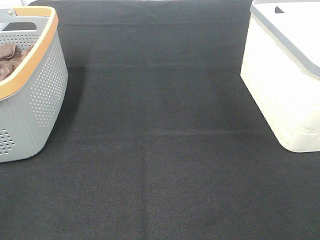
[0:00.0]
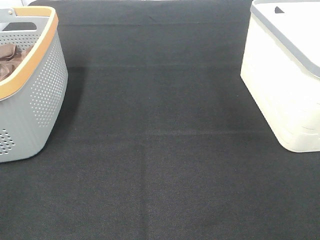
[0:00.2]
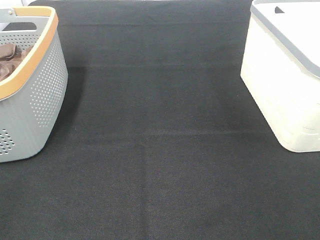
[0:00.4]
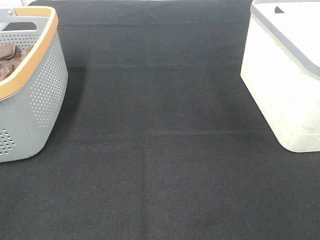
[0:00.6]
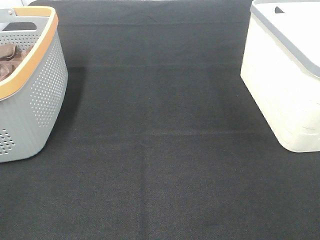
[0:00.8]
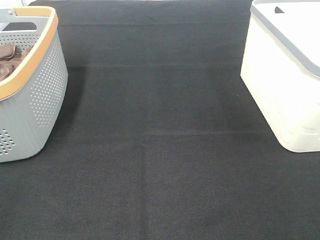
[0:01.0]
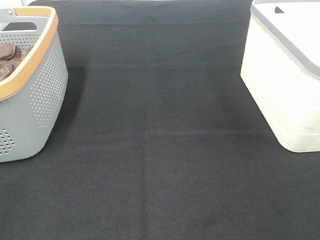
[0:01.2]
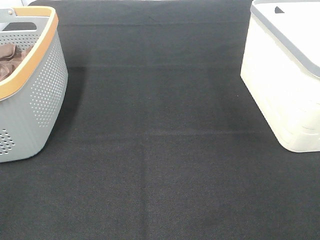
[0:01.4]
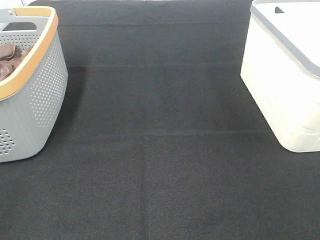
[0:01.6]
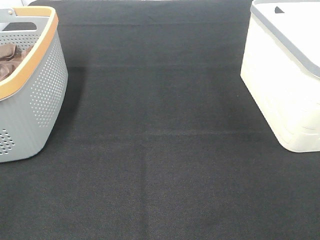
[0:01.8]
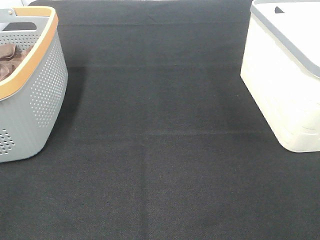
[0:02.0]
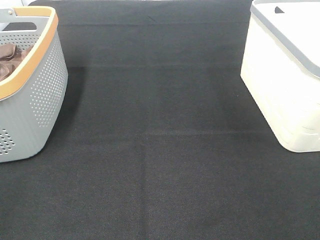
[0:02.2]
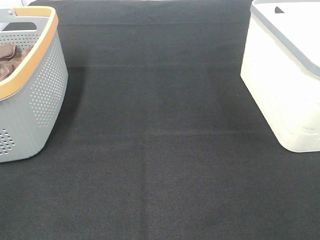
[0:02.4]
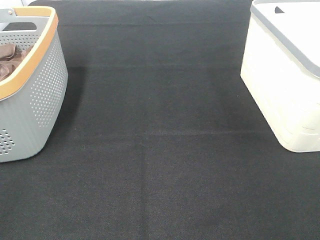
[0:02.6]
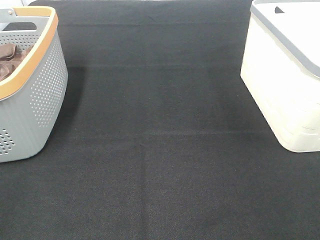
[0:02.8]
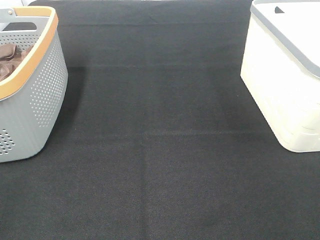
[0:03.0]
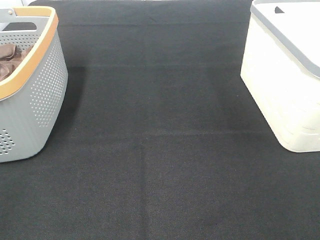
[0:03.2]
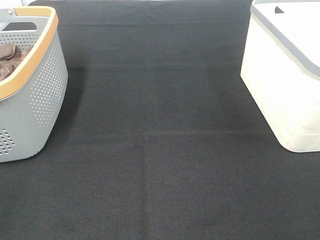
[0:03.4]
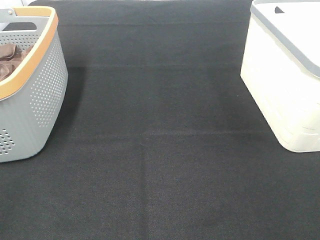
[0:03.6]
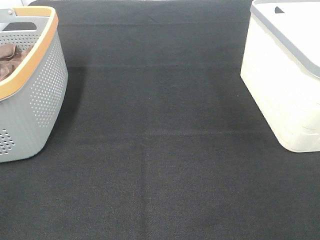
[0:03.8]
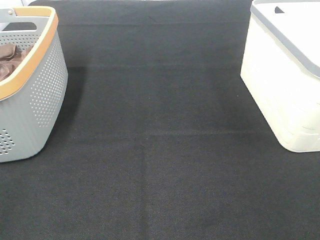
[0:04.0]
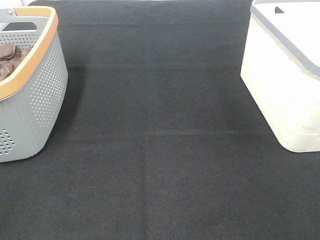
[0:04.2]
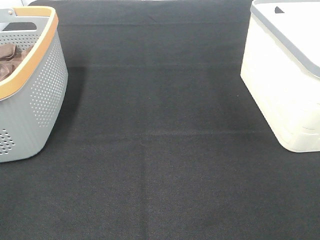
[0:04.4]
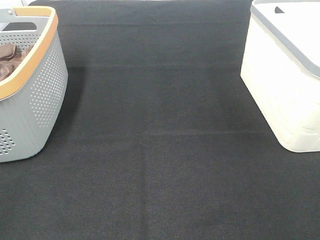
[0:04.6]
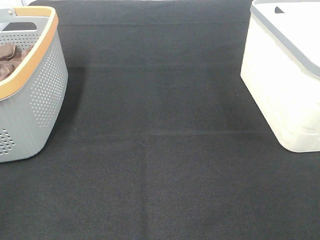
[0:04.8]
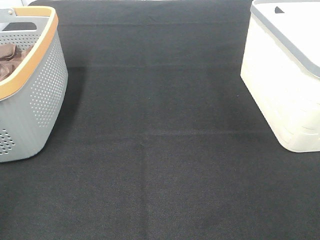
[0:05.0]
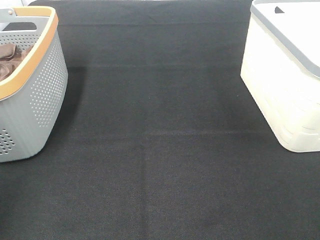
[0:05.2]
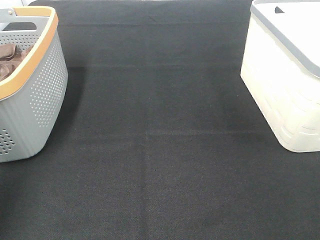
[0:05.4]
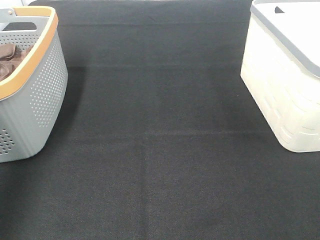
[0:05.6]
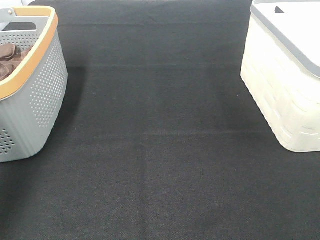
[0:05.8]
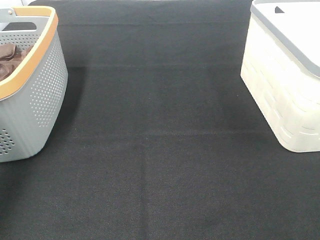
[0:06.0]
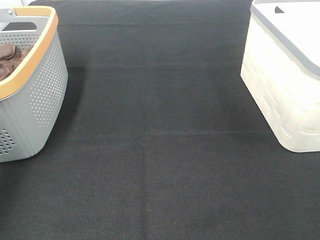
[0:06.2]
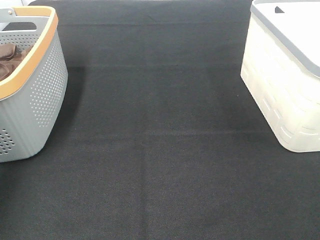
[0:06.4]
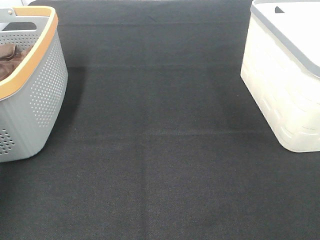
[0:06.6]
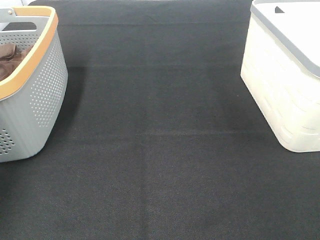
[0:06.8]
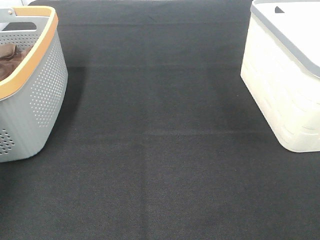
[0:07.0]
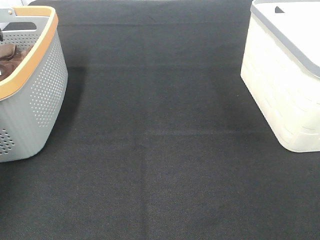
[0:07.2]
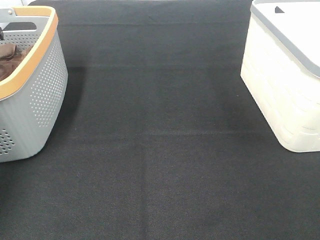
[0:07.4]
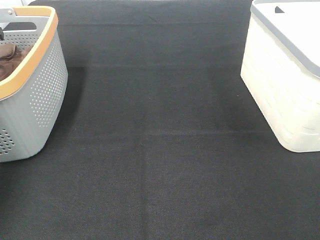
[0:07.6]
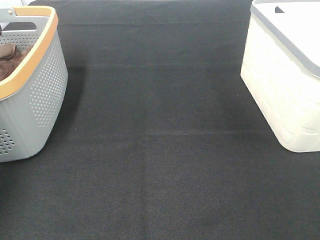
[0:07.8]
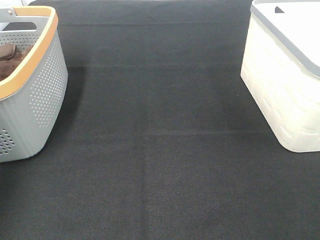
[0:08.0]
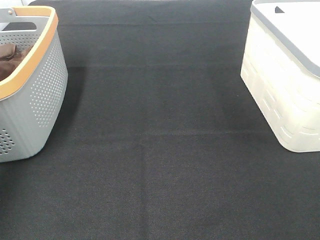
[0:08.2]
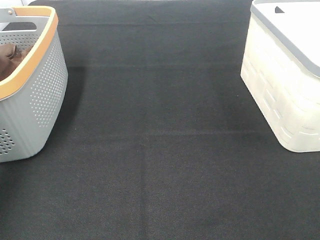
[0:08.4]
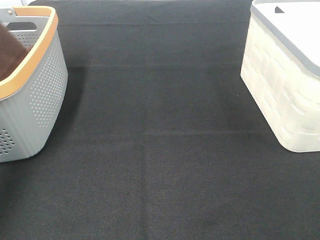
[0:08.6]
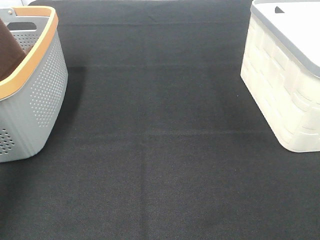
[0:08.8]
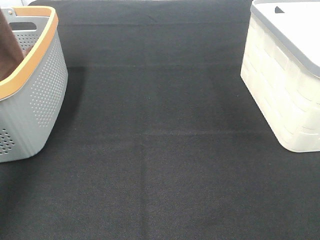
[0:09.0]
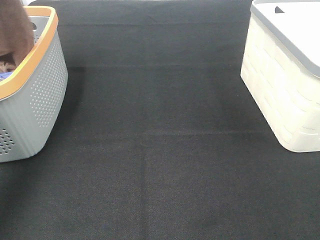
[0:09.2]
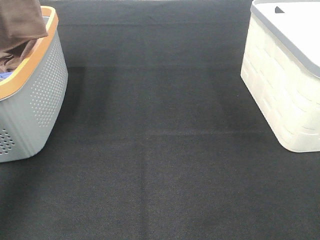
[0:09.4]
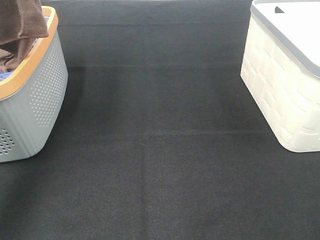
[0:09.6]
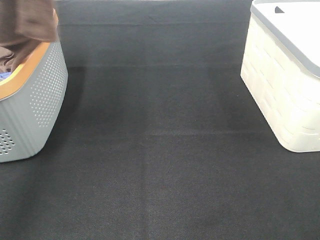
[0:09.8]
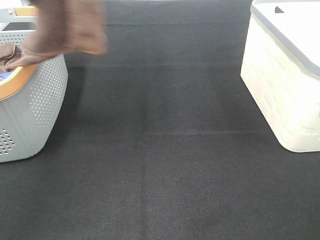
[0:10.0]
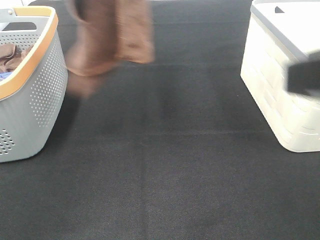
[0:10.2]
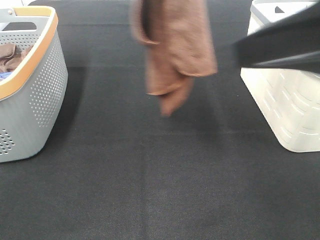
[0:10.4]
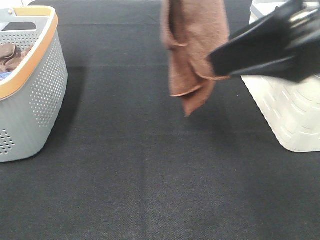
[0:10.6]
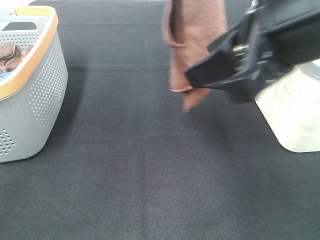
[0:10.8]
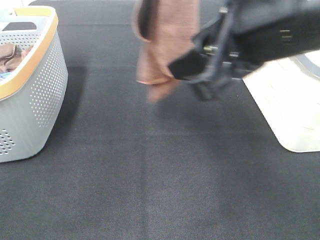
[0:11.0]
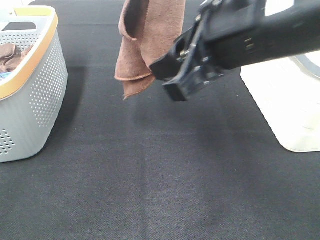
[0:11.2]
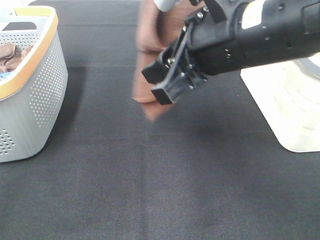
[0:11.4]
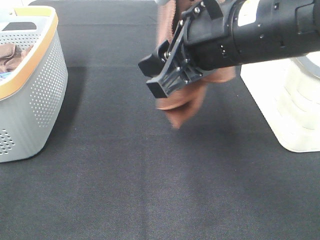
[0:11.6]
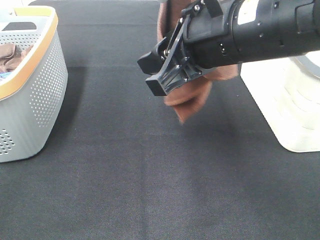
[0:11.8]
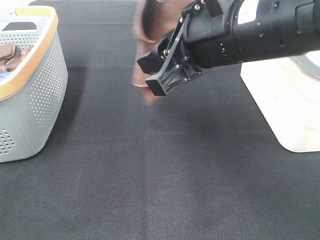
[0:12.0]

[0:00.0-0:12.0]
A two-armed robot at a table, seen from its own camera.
Task of the whole recording: Remove the towel and place it.
0:00.0 to 0:04.4: Neither gripper changes place.
0:04.4 to 0:06.0: The left gripper goes about 30 cm forward.
0:07.6 to 0:09.0: The left gripper goes some 35 cm upward and backward.
0:09.0 to 0:10.4: The right gripper heads forward, to the left and upward, covering approximately 20 cm; the left gripper travels to the right by approximately 20 cm.
0:10.4 to 0:12.0: The right gripper moves to the left, forward and downward, about 15 cm.

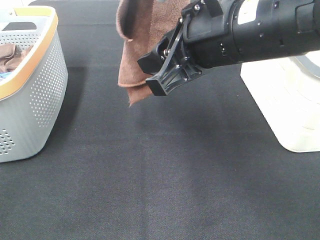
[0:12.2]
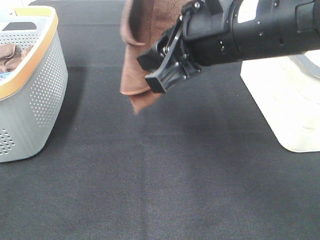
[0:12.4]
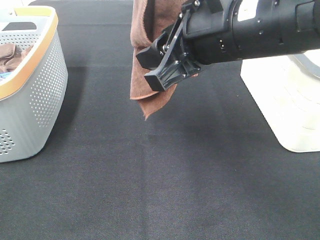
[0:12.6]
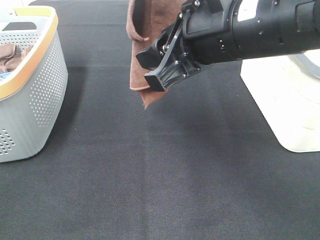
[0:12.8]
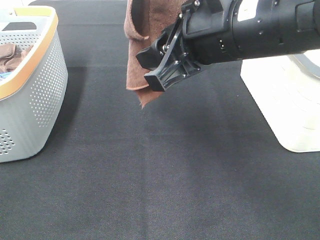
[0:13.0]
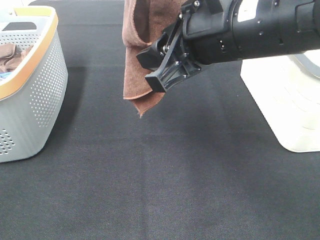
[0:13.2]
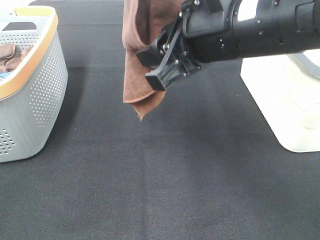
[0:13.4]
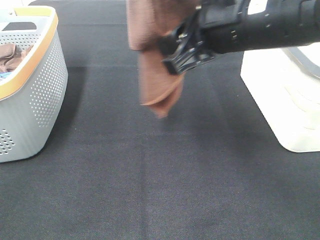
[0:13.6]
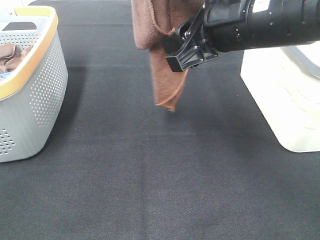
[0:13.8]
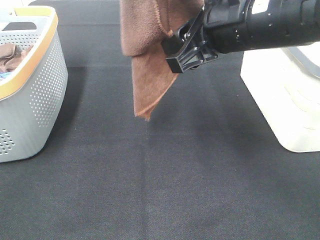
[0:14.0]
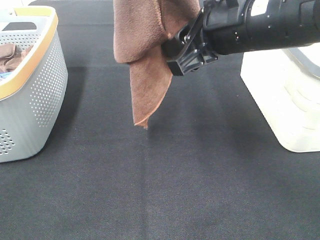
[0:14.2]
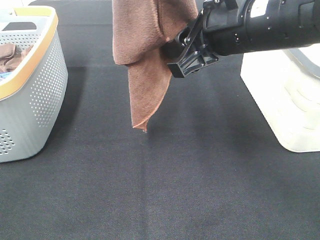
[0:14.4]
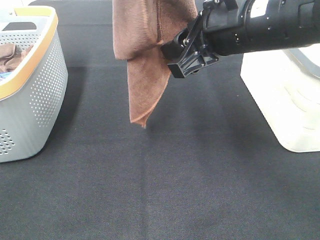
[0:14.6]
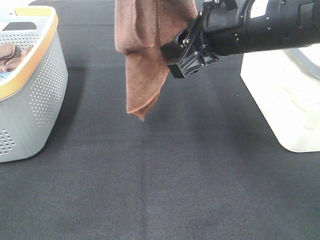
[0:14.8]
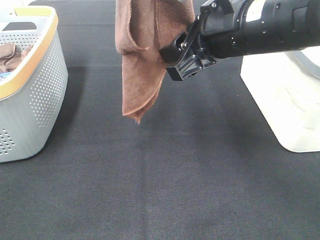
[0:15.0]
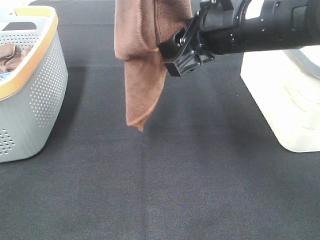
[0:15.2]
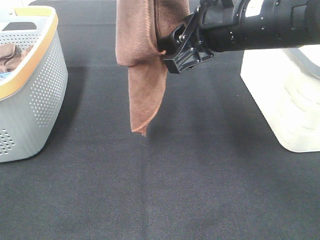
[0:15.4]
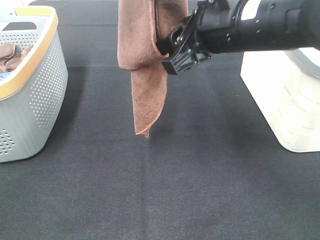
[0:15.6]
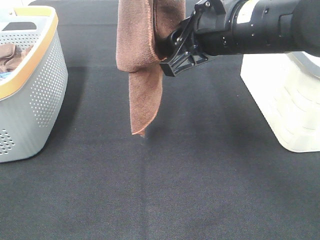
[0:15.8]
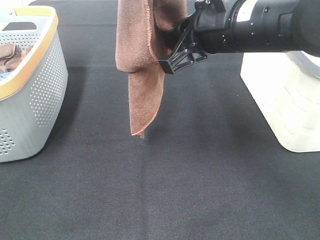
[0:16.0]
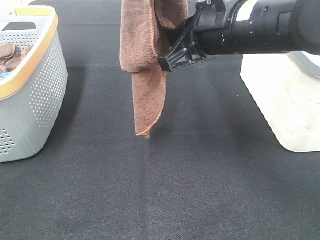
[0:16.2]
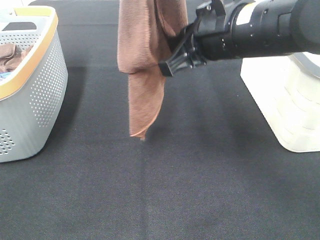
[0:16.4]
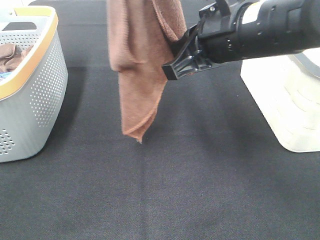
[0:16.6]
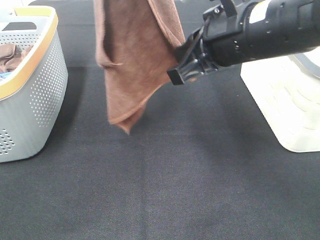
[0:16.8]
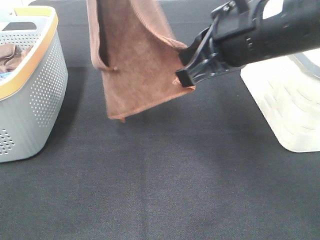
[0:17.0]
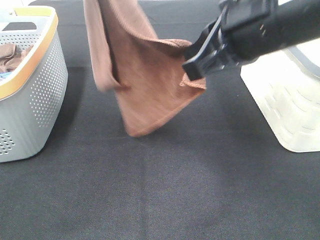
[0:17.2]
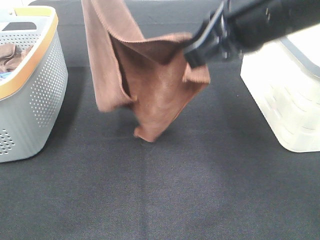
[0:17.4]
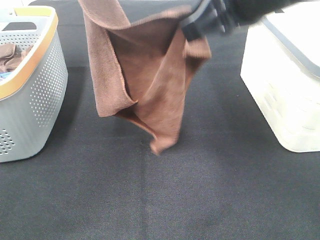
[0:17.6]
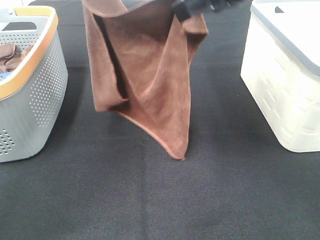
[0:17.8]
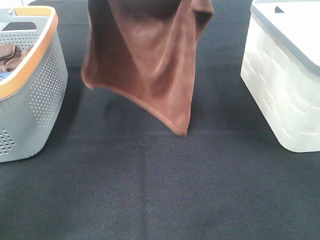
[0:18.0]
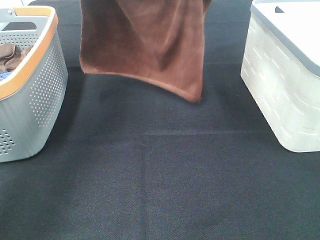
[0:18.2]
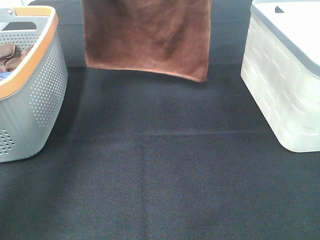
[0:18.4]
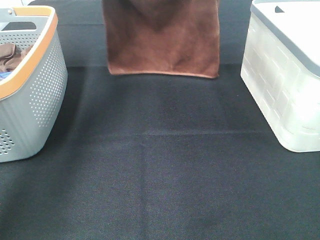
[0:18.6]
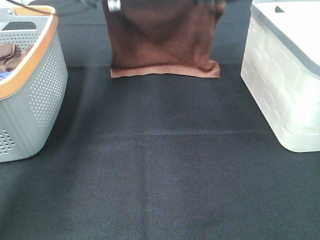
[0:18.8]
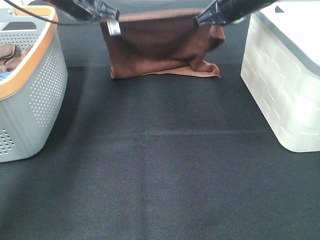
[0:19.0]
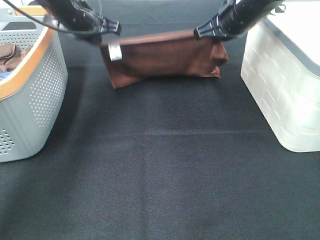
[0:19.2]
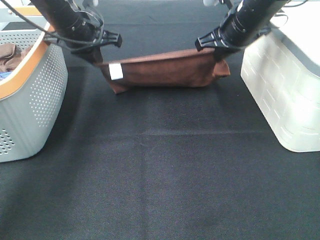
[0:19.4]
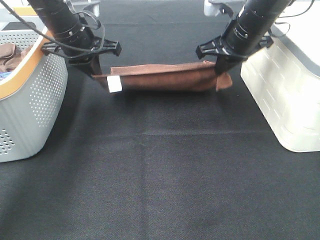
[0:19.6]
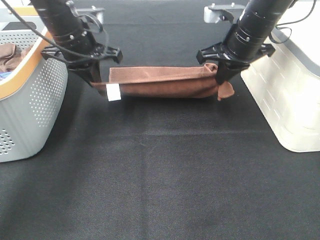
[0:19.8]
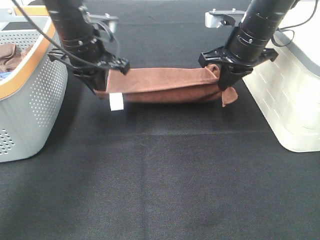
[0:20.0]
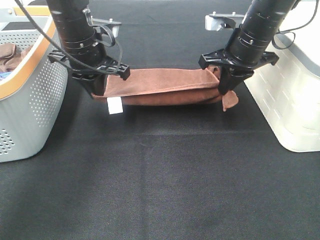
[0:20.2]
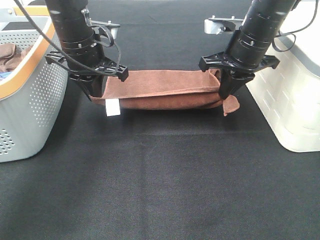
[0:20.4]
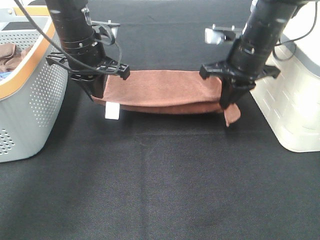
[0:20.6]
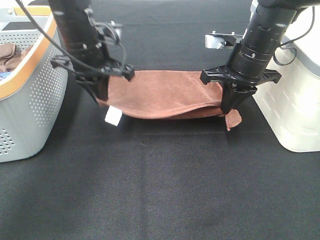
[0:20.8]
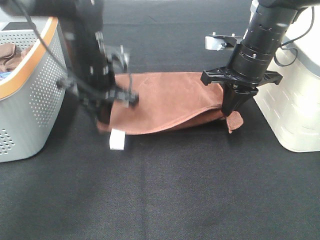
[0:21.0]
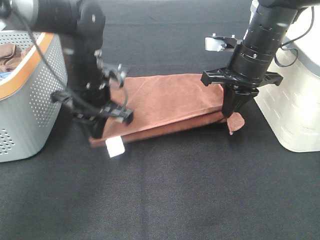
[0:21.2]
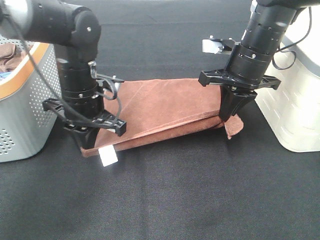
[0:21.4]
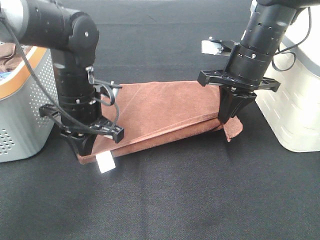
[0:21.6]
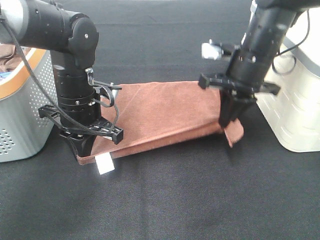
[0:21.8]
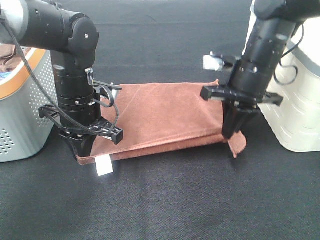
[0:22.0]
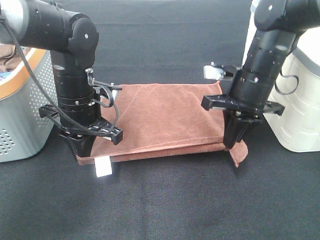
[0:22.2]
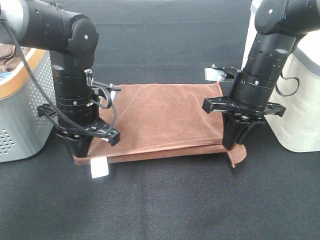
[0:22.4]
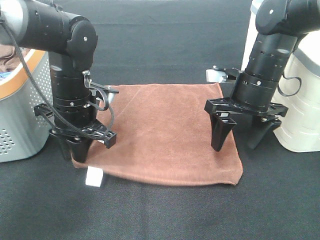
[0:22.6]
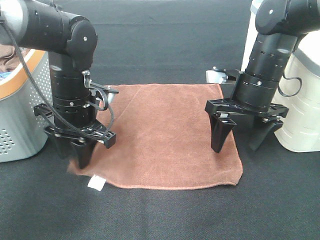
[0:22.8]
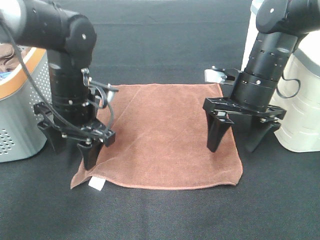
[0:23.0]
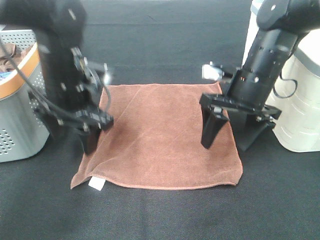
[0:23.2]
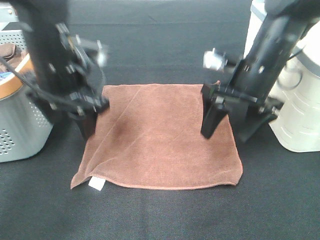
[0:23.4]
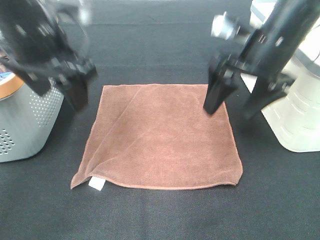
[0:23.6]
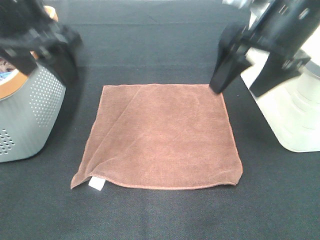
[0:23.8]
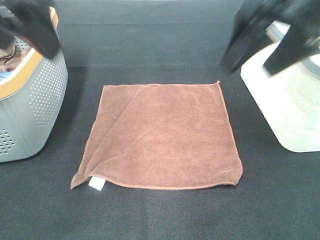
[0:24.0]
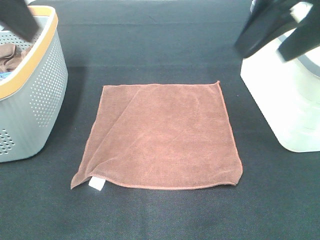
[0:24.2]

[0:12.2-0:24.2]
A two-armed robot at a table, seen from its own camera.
Task of the whole recording: Remove the towel and place it.
Step, 0:12.2 to 0:14.8: Right hand: grab a corner of the brown towel and straighten it.
Step, 0:15.0 to 0:18.0: Right hand: spread the brown towel flat on the table.
Step, 0:15.0 to 0:18.2: Left hand: spread the brown towel flat on the table.
0:12.2 to 0:13.8: The grippers stay close to where they were, moving slightly.
0:13.8 to 0:15.2: Both grippers stay about where they are.
0:15.2 to 0:16.6: The right gripper closes.
0:16.6 to 0:18.2: The left gripper travels forward and downward by approximately 20 cm. Meanwhile the right gripper goes approximately 15 cm forward and upward.
0:18.2 to 0:19.8: The two grippers go some 15 cm downward.
0:19.8 to 0:21.2: The left gripper shifts some 10 cm backward and downward.
0:21.2 to 0:22.6: The left gripper opens up. Meanwhile the right gripper opens up.
0:22.6 to 0:24.2: Both grippers travel together upward and backward, roughly 25 cm. The left gripper opens.
